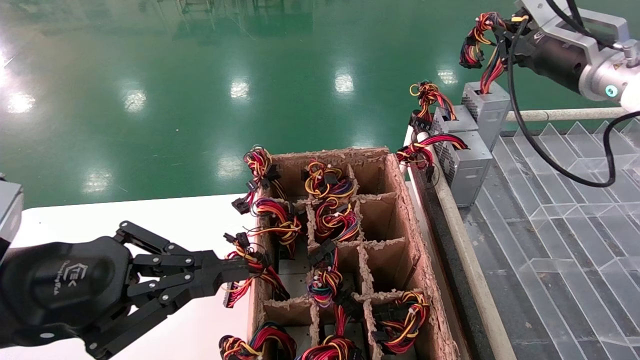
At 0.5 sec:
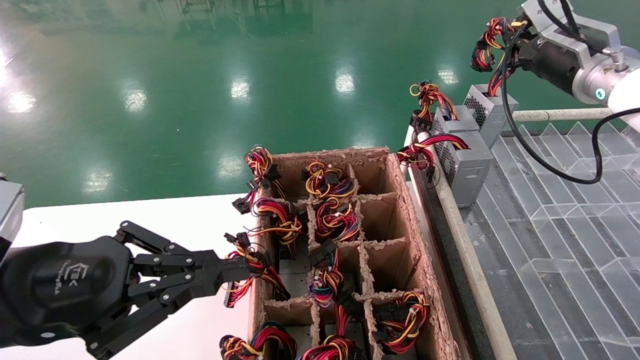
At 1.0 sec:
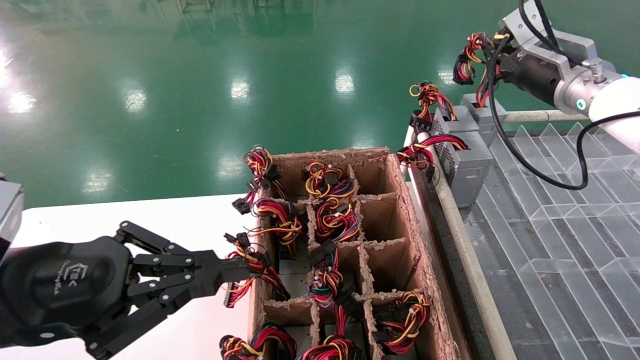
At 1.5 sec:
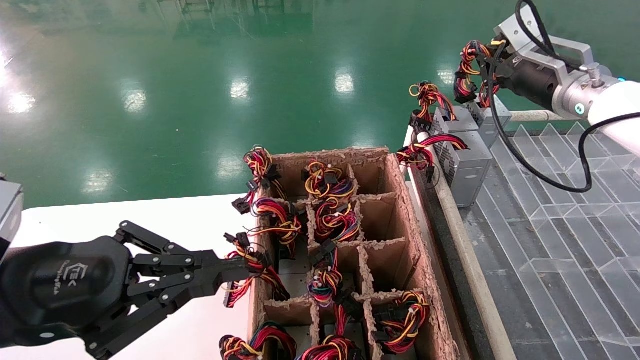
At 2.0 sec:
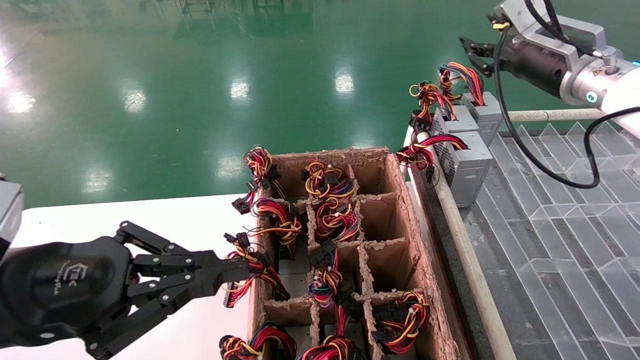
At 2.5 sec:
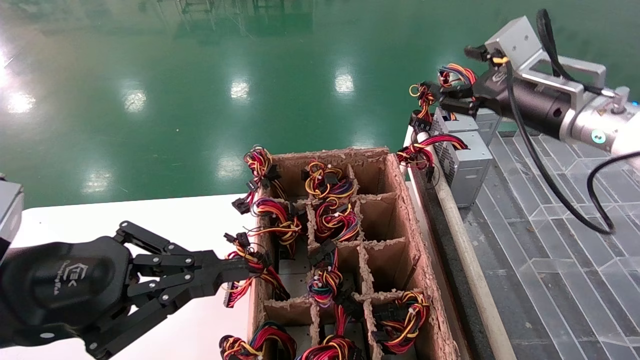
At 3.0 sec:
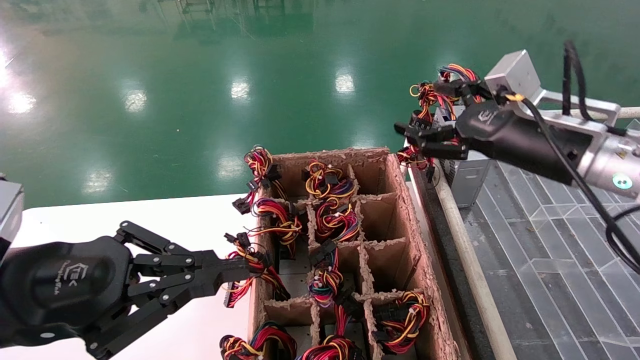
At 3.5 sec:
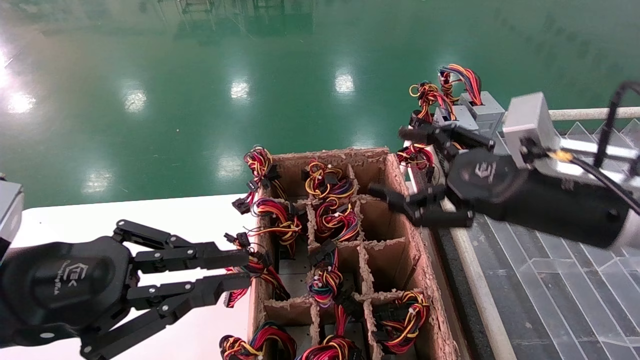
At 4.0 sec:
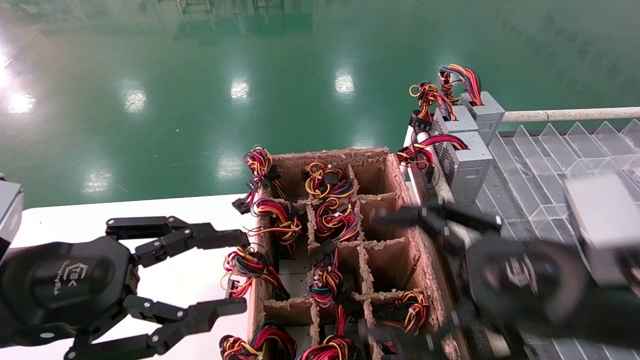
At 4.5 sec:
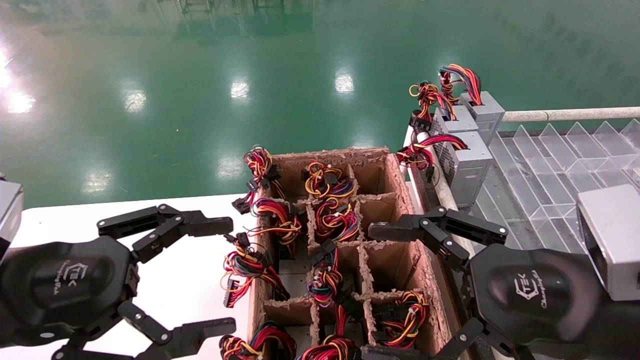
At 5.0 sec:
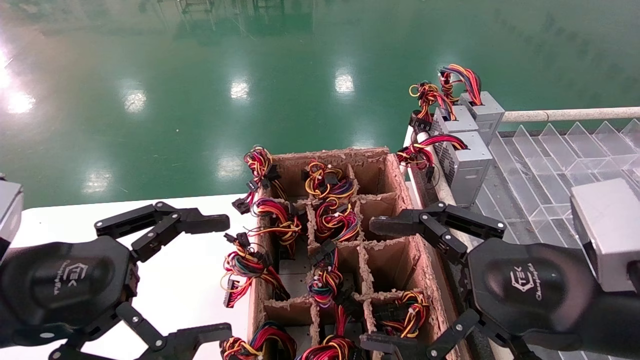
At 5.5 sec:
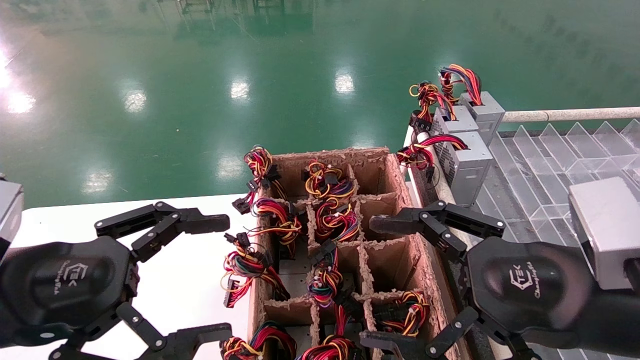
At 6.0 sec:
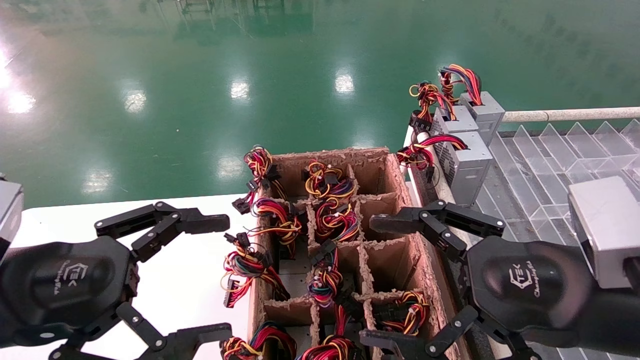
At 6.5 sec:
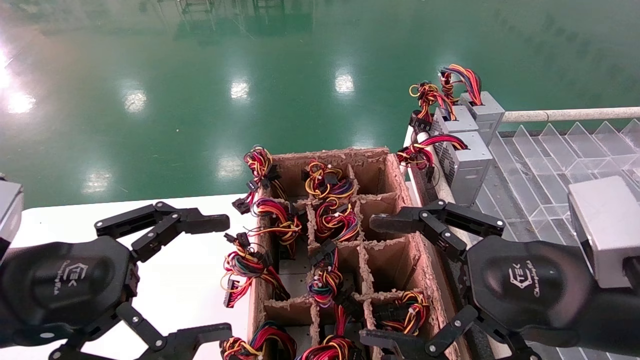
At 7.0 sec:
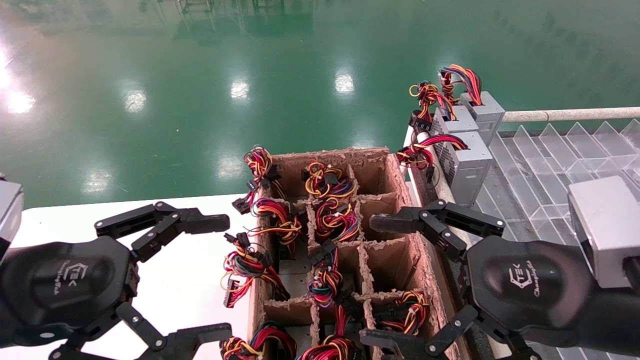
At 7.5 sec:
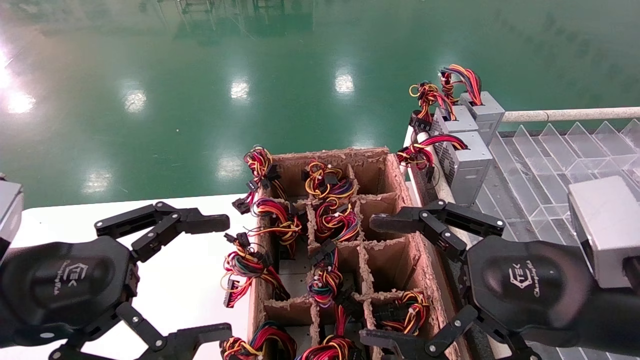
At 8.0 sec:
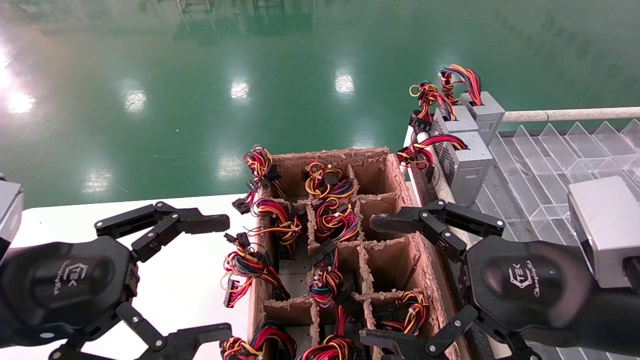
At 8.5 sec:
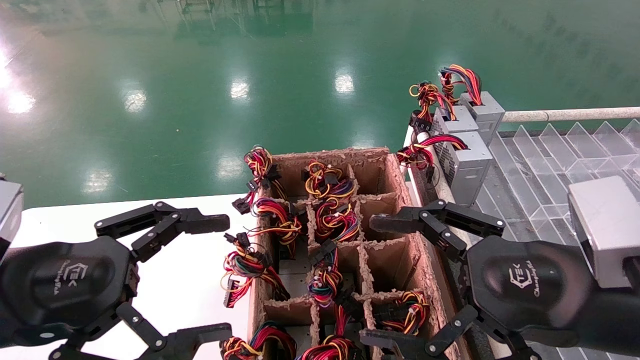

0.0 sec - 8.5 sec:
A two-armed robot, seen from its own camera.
0.0 sec - 2.0 sec: There are only small adjustments of the grippers.
2.0 sec - 4.0 sec: The right gripper travels backward and downward by some 25 cm, and opens, while the left gripper opens.
4.0 sec - 6.5 sec: The left gripper opens its fingers.
6.5 sec - 8.5 sec: Neither gripper changes place.
